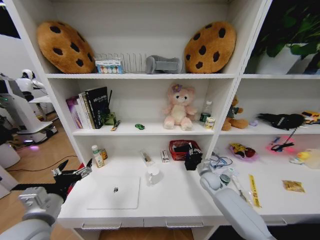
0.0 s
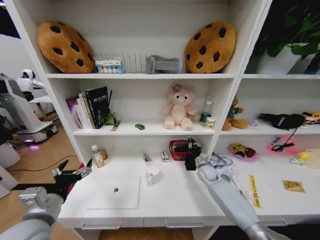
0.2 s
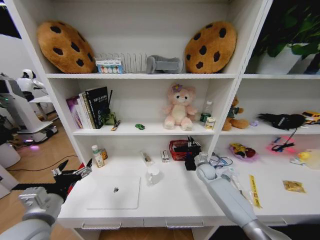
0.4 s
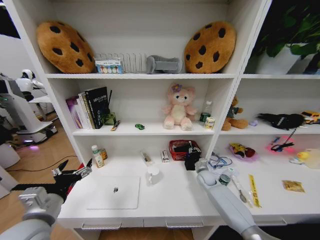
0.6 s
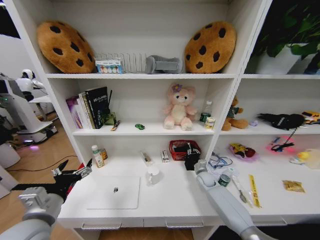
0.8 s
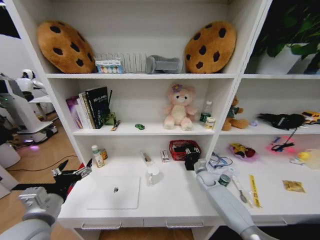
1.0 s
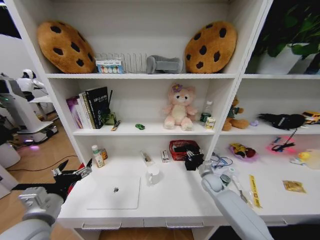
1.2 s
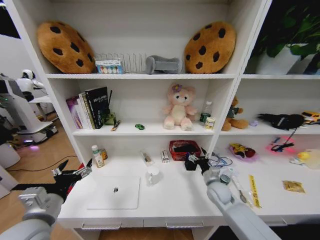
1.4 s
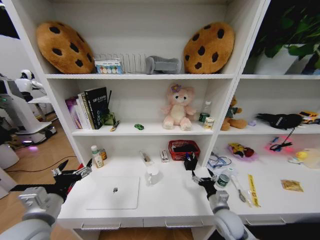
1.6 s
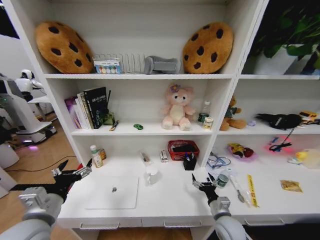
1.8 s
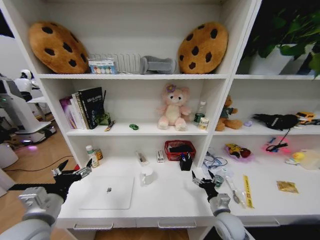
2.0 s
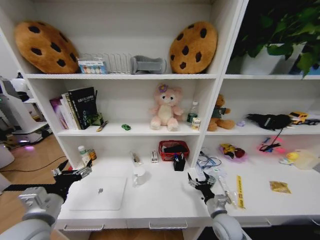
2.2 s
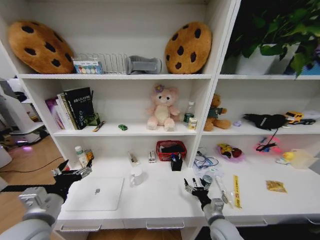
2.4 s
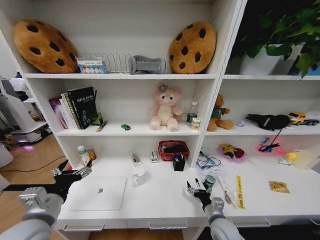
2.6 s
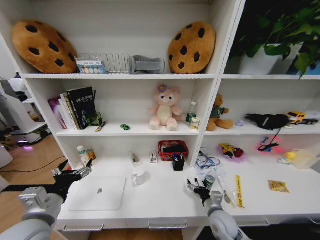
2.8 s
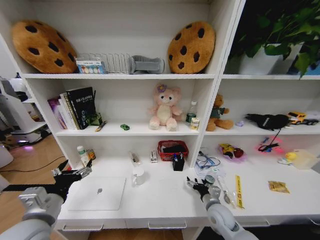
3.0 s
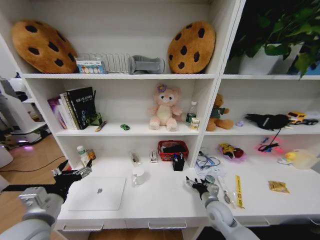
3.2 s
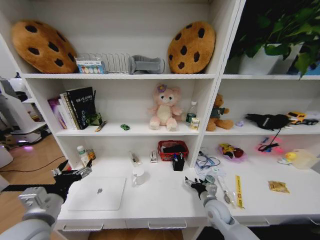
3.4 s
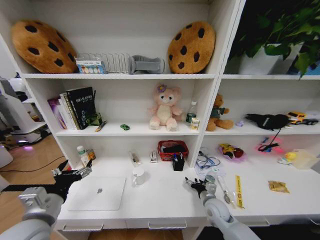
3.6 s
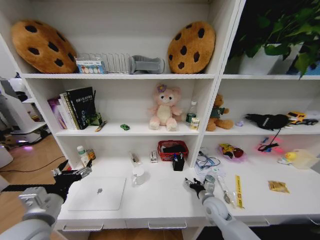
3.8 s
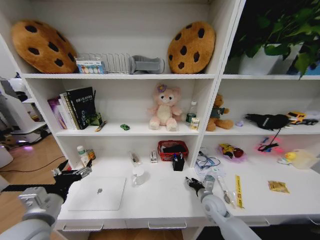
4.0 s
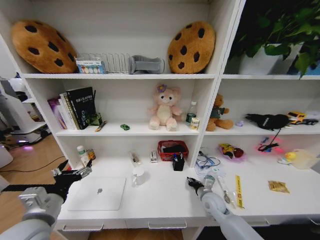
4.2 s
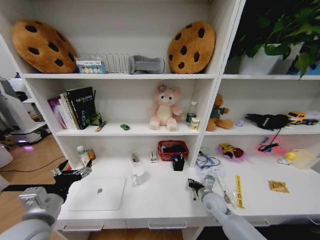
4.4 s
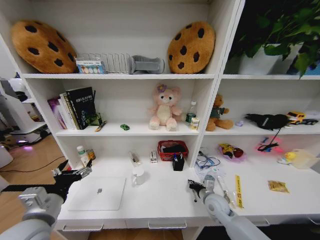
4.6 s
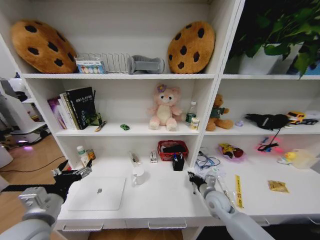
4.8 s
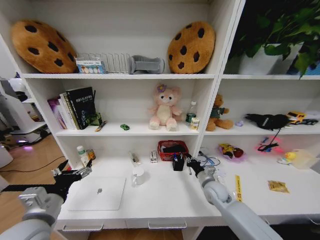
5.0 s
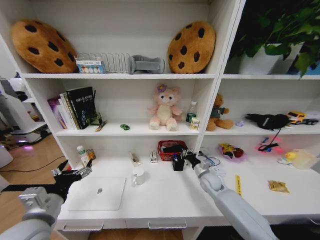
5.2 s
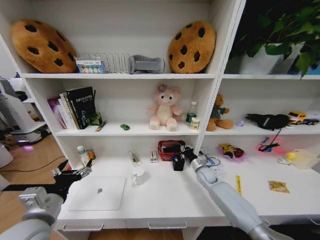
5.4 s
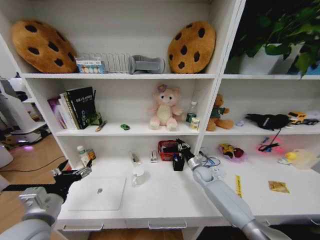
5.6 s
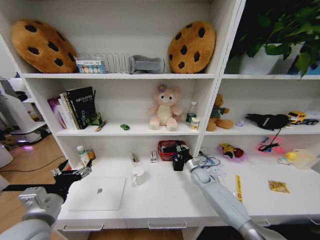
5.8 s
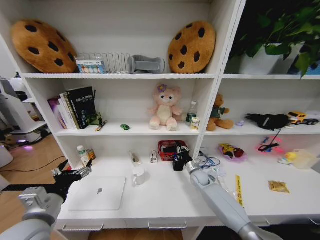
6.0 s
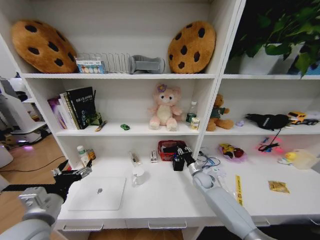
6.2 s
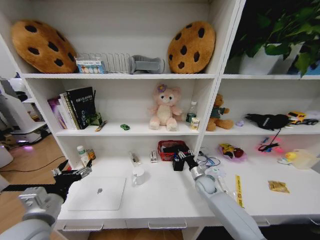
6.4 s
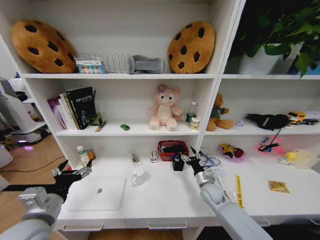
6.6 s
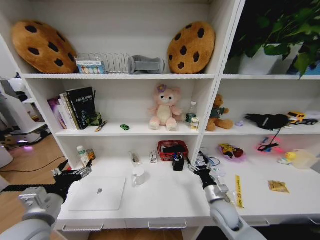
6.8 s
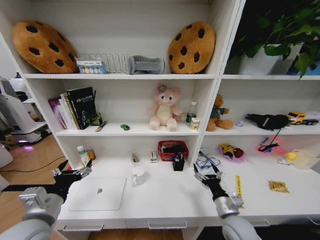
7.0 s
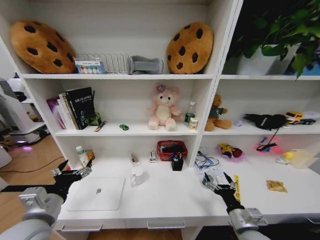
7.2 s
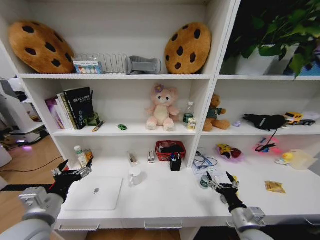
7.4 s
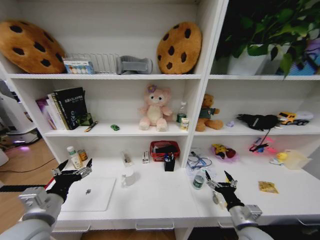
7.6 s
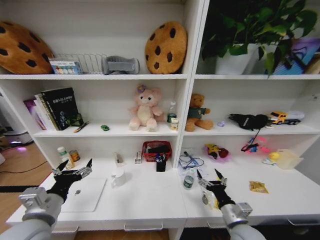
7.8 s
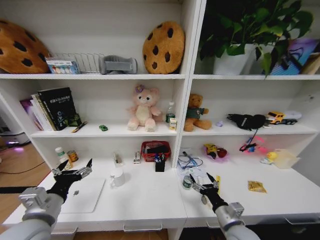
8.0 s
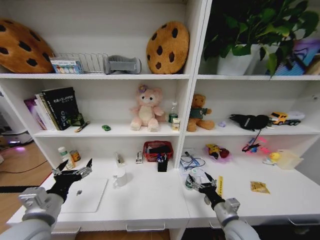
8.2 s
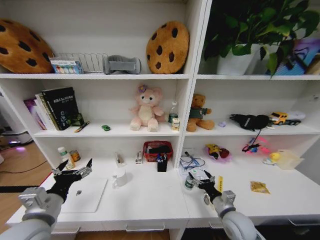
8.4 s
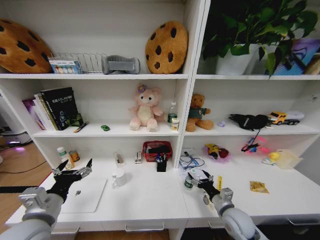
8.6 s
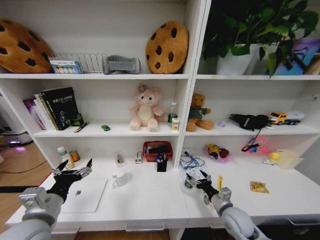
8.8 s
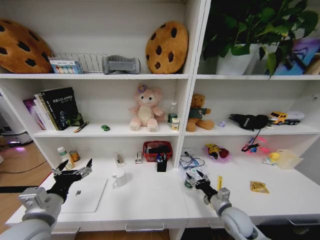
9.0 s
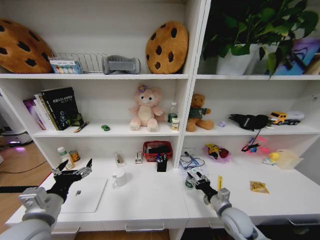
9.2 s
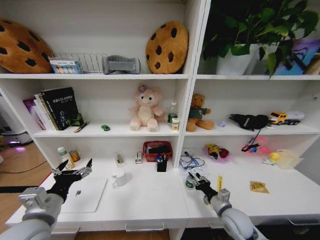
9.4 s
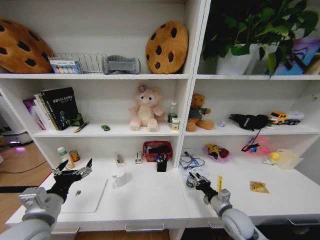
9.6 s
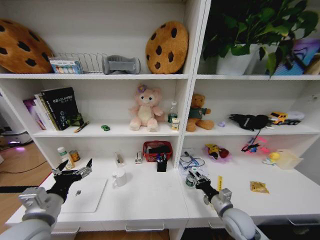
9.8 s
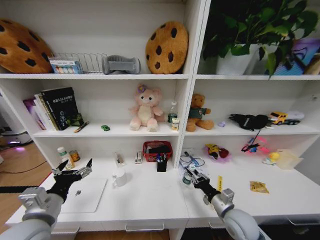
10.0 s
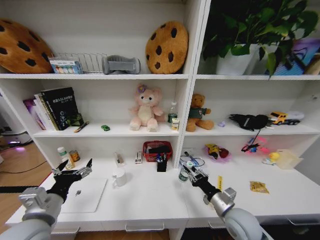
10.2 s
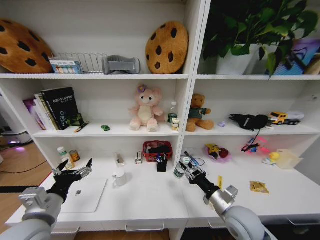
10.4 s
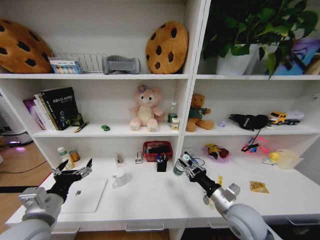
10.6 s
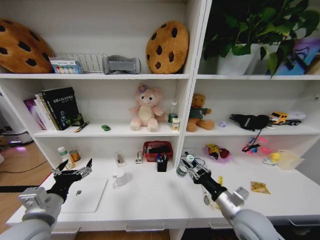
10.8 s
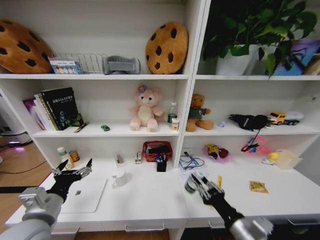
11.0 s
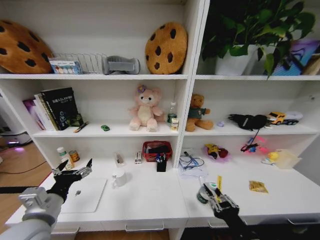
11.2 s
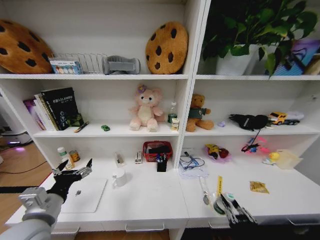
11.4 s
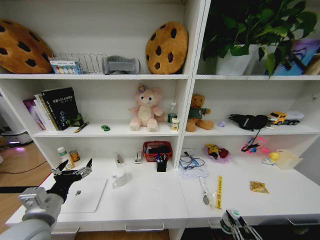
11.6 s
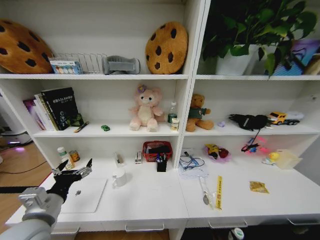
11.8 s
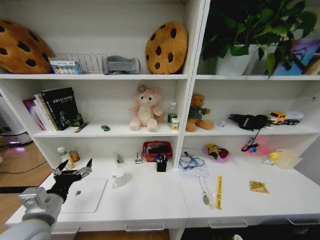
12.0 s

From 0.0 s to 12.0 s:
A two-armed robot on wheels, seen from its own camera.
Task of the whole recording: Organize the objects on the table.
From 0.0 s to 1.6 s: The right gripper heads backward, covering approximately 15 cm, and opens its fingers.
From 3.0 s to 4.4 s: The right gripper closes up.
From 4.4 s to 6.0 s: The right gripper shifts some 15 cm forward.
From 6.0 s to 7.6 s: The right gripper moves backward, roughly 30 cm, and opens.
From 7.6 s to 9.0 s: The right gripper shifts roughly 5 cm forward.
From 9.0 s to 10.4 s: The right gripper heads upward, covering approximately 10 cm, and closes.
From 10.4 s to 12.0 s: The right gripper heads backward and downward, covering roughly 30 cm.

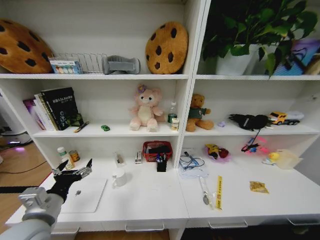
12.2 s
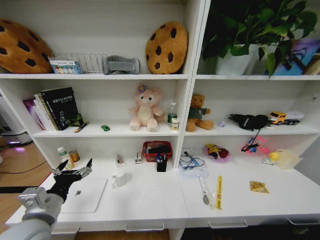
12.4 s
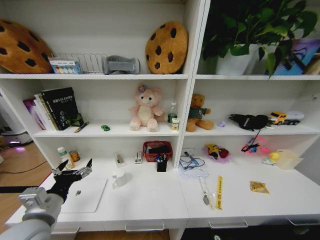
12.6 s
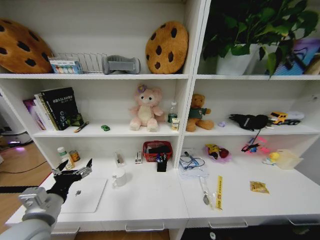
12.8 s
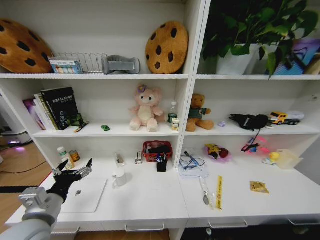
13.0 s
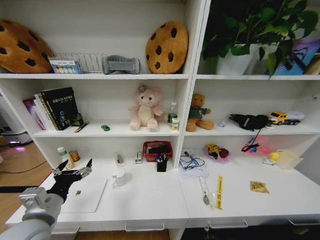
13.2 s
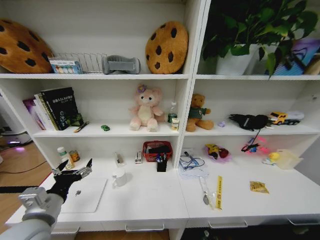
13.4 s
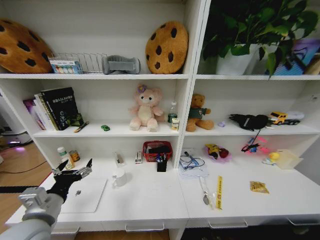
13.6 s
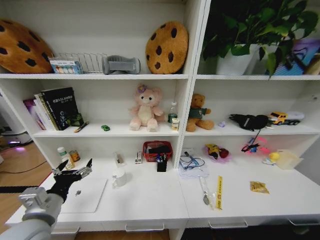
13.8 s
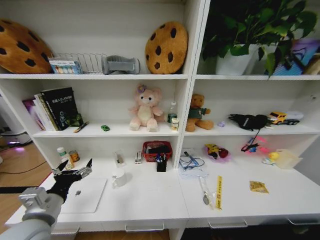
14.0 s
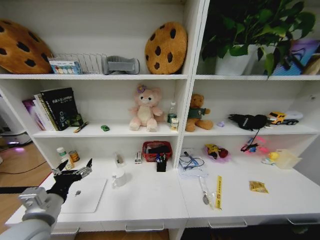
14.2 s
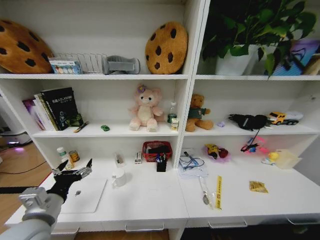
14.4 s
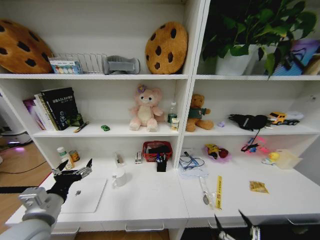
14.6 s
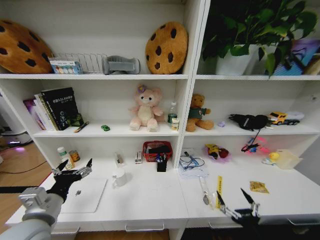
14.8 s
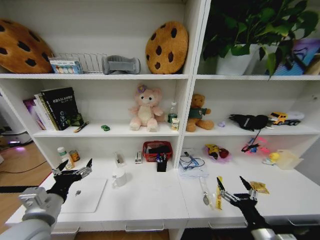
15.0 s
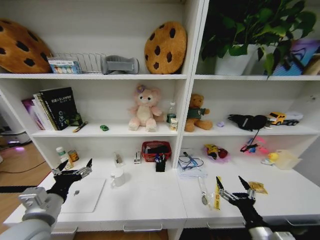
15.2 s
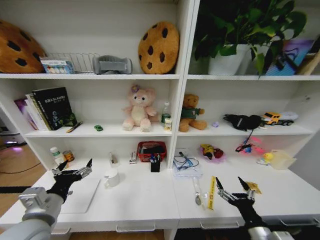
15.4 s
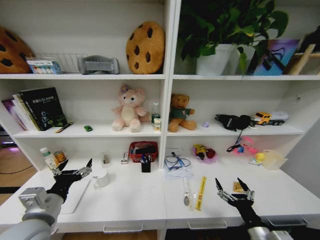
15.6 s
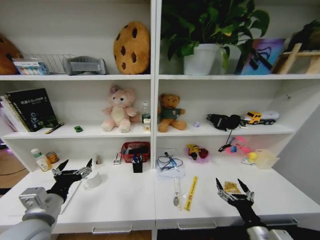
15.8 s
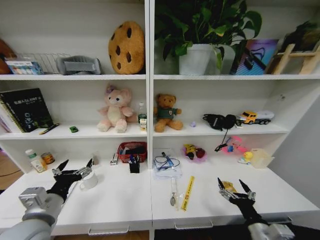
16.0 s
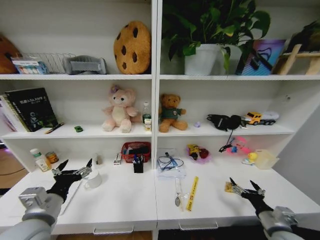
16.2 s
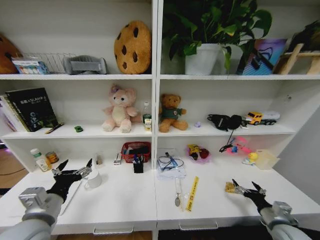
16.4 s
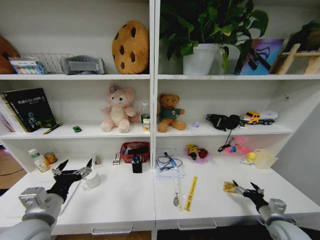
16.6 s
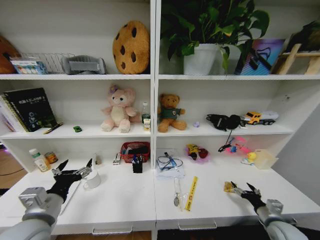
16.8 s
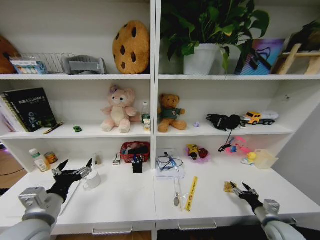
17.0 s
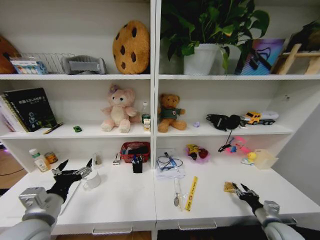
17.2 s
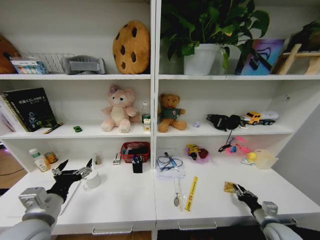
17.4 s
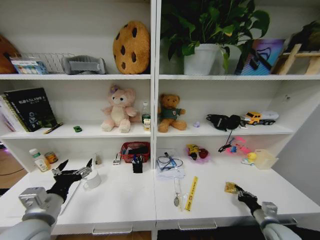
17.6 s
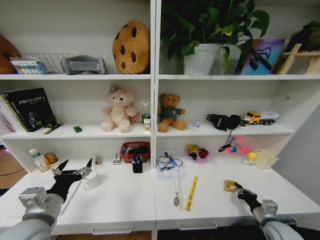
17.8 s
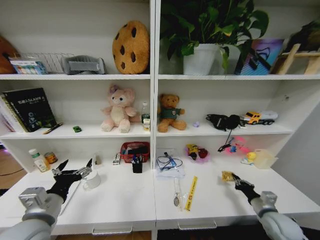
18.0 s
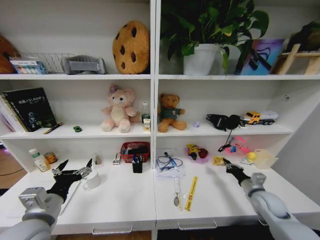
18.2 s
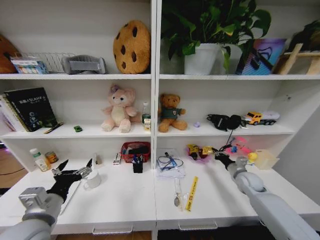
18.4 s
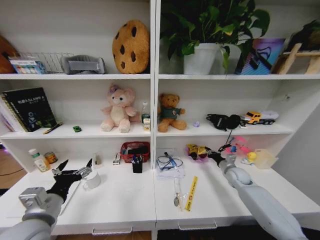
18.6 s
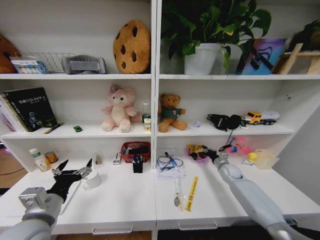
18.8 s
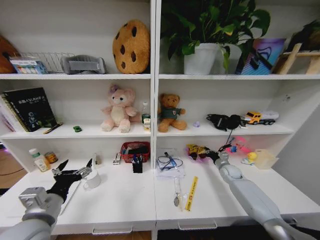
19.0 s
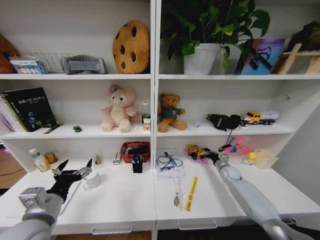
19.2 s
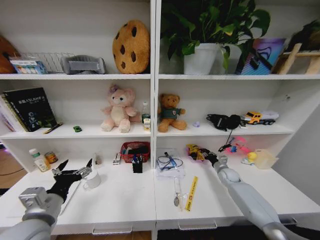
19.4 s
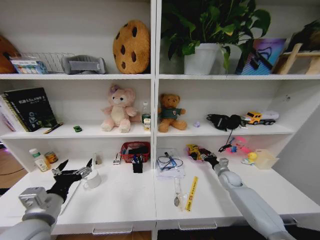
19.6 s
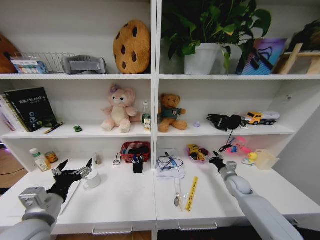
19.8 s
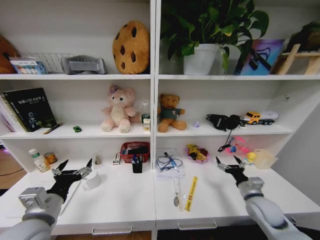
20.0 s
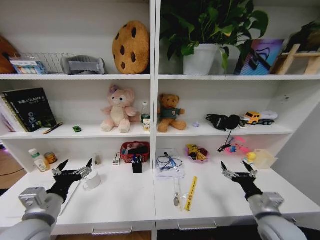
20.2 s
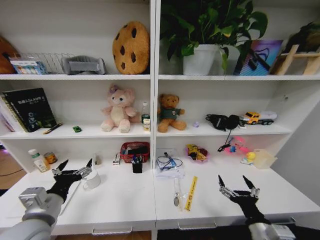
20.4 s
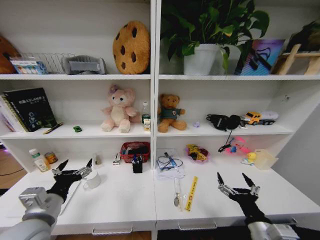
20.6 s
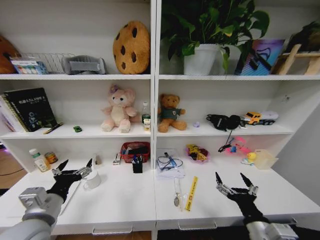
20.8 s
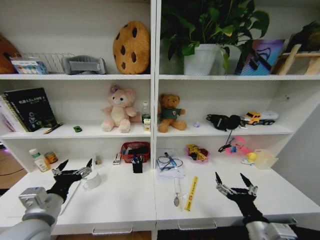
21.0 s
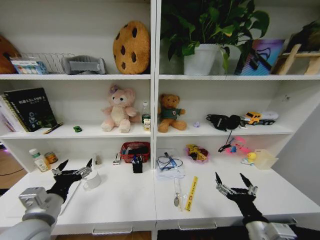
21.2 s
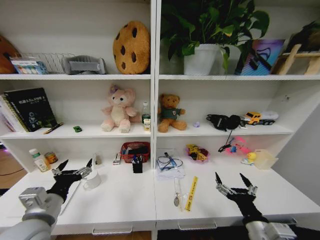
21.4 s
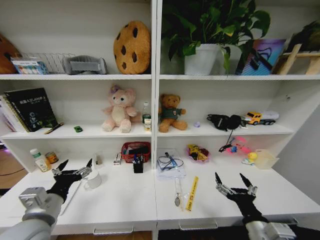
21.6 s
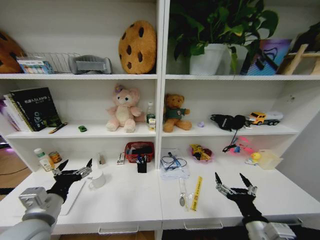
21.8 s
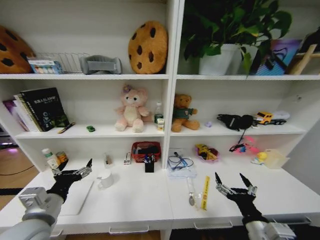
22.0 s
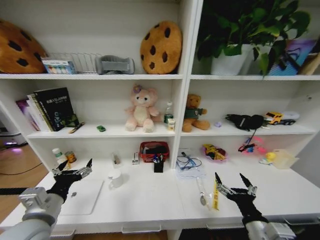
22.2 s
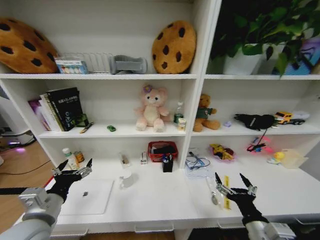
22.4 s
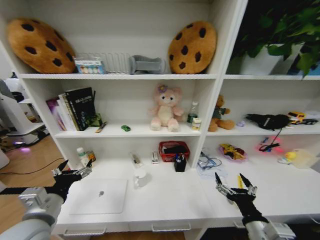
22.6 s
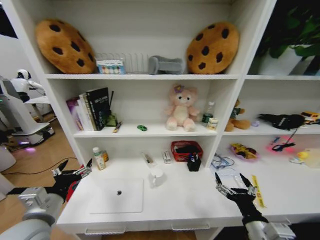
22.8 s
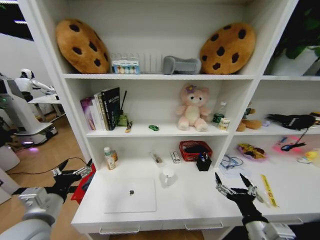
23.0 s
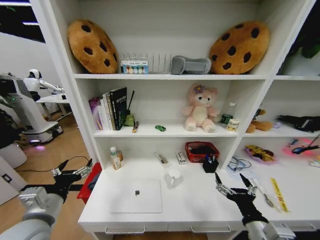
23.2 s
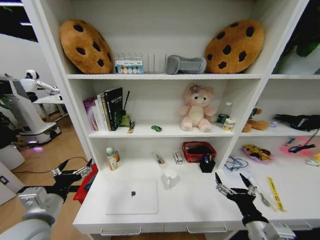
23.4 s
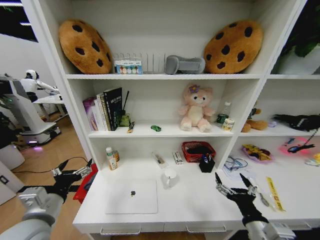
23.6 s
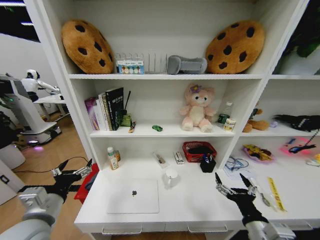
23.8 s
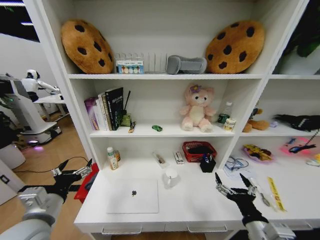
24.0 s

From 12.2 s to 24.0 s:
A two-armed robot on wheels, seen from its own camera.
Task of the whole recording: Organize the objects on the table.
From 13.6 s to 15.2 s: The right gripper goes approximately 40 cm upward.
From 15.2 s to 16.6 s: The right gripper shifts some 20 cm to the right, forward and downward.
From 16.6 s to 18.2 s: The right gripper moves forward, about 10 cm, and closes up.
From 18.2 s to 19.6 s: The right gripper is displaced forward and downward by roughly 15 cm, and opens.
From 19.6 s to 21.0 s: The right gripper travels backward, upward and to the left by roughly 40 cm, and opens its fingers.
